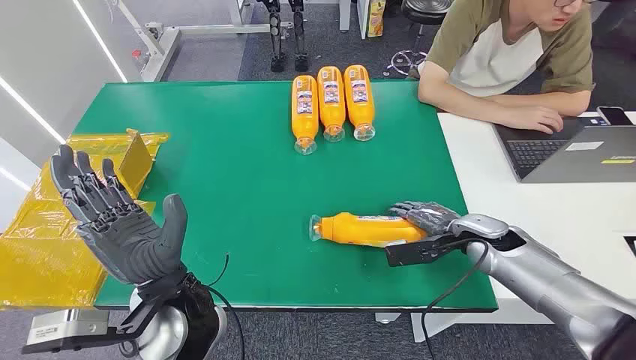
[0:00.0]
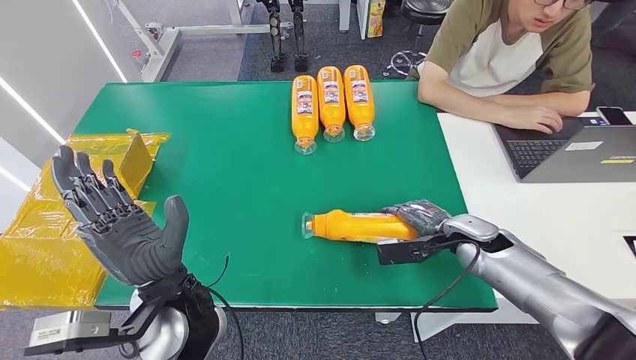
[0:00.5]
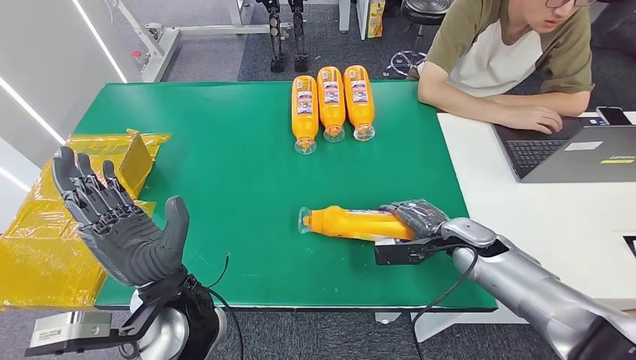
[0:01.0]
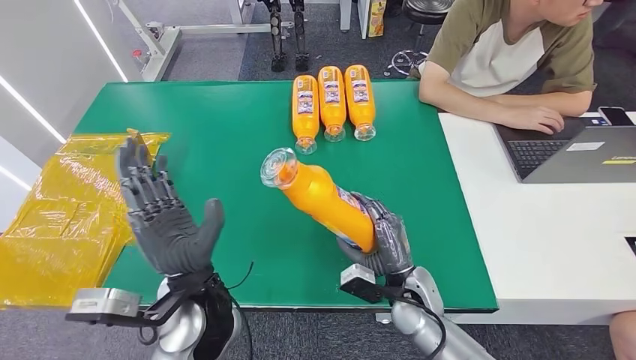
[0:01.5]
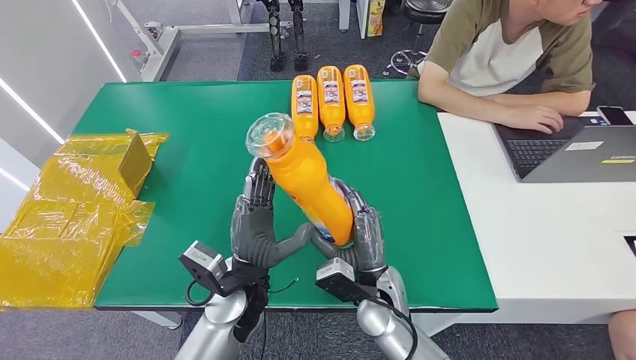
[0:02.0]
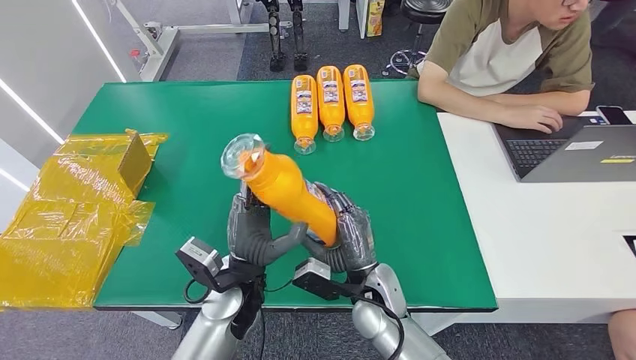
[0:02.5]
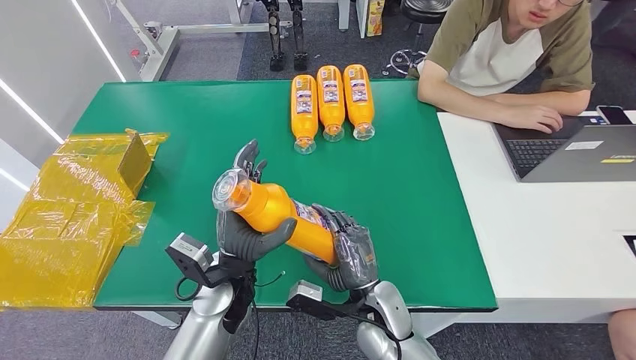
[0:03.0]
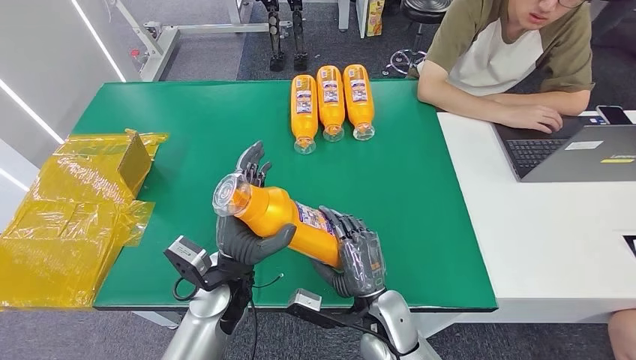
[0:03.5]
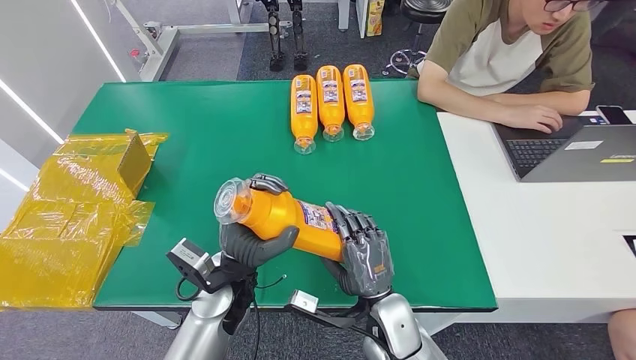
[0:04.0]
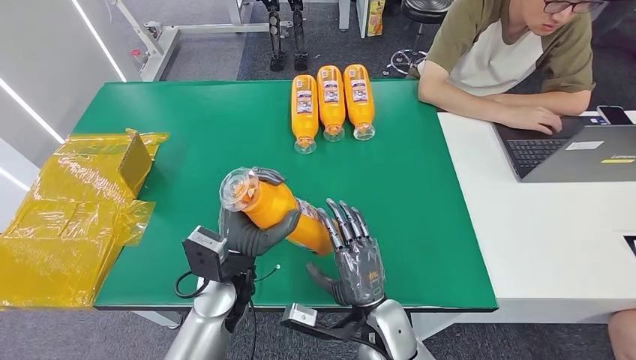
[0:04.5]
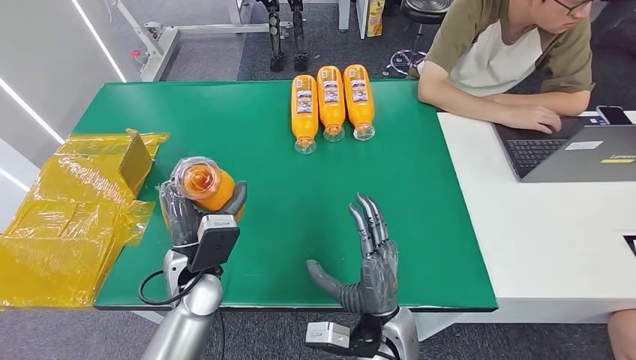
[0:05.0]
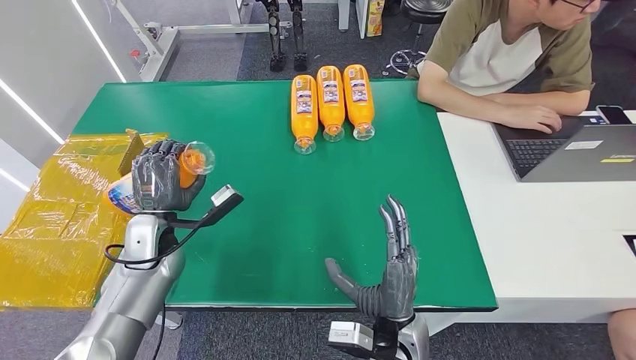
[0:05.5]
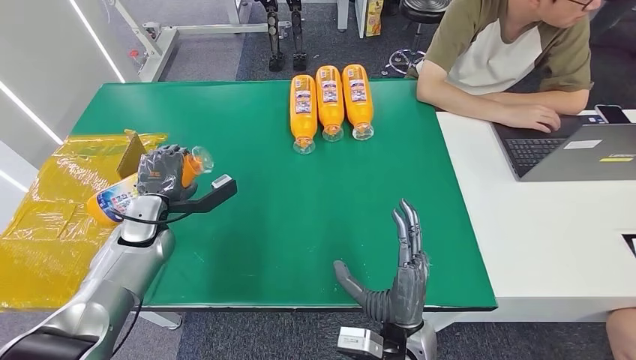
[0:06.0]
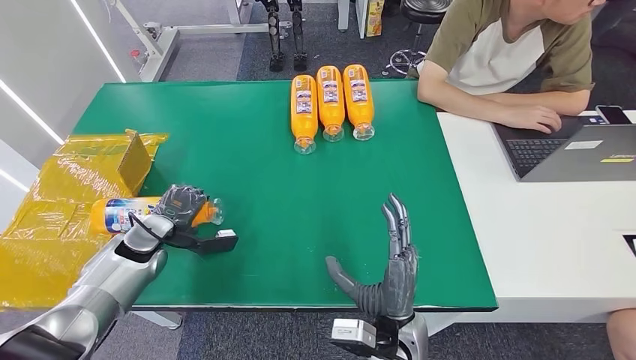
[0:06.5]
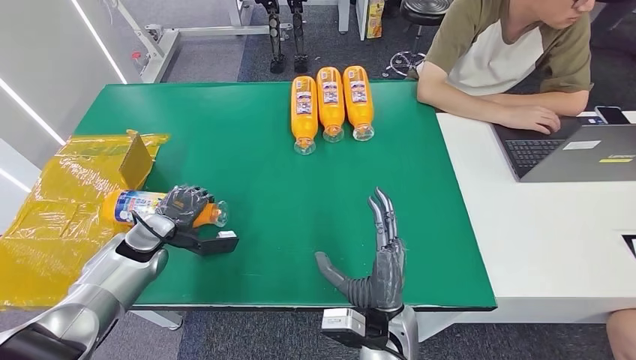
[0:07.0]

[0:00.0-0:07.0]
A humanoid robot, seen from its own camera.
Step, 0:00.0 to 0:02.0: Pick up the bottle from the table.
Step, 0:02.5 to 0:07.0: Turn the bottle to the front side.
0:03.5 to 0:05.0: The left hand moves approximately 5 cm.
0:05.0 to 0:07.0: The left hand heads to the left, covering approximately 20 cm.

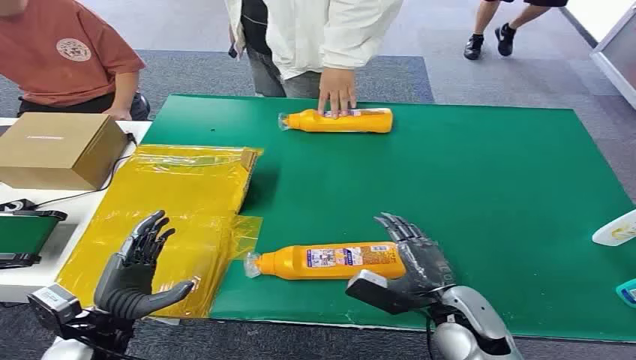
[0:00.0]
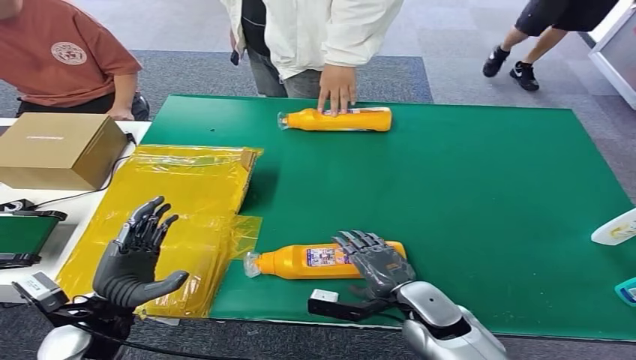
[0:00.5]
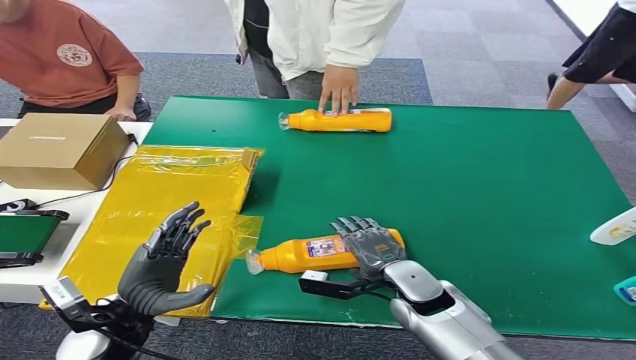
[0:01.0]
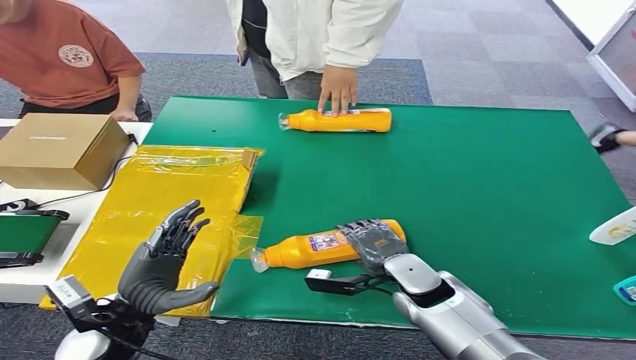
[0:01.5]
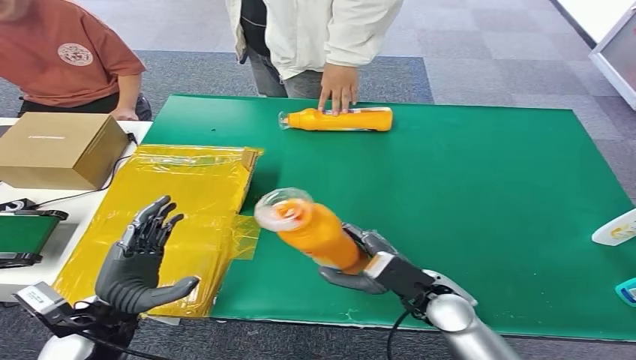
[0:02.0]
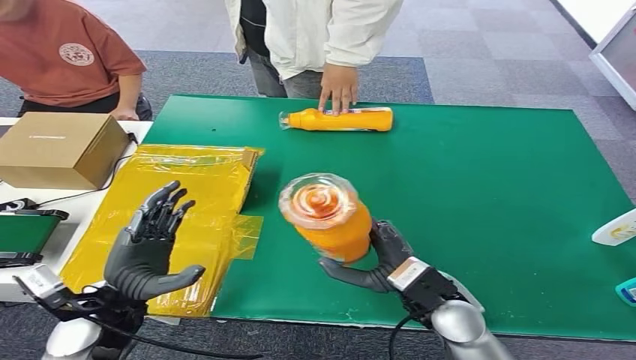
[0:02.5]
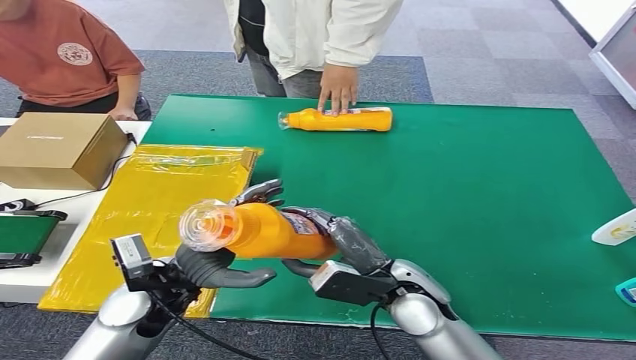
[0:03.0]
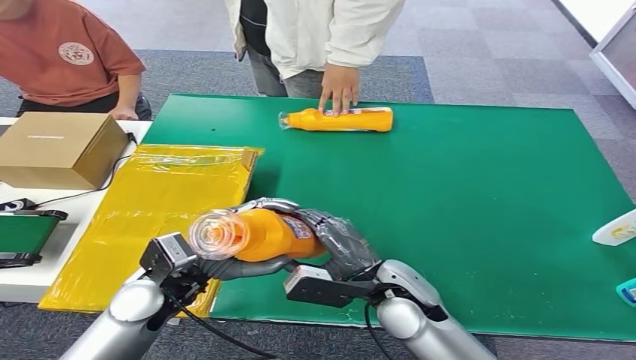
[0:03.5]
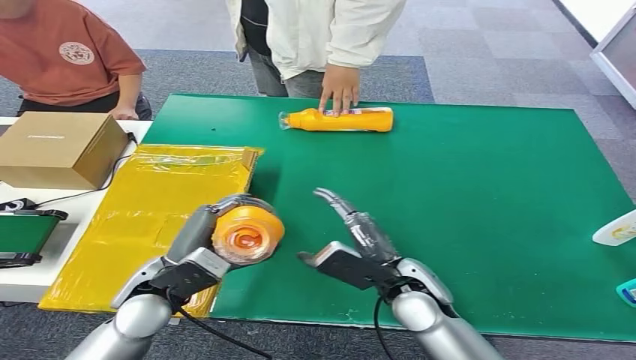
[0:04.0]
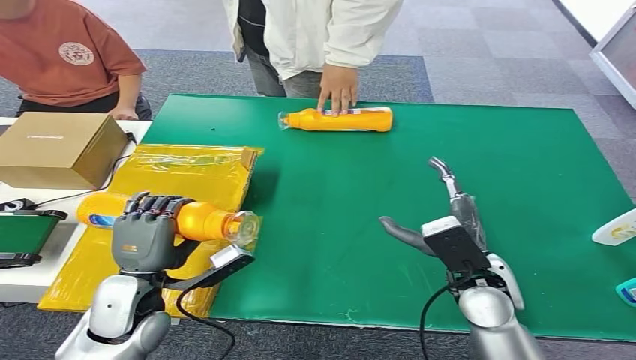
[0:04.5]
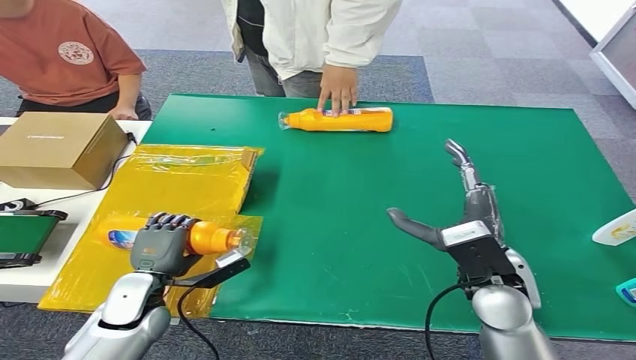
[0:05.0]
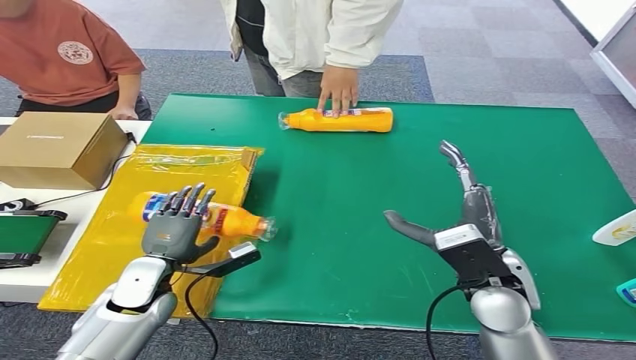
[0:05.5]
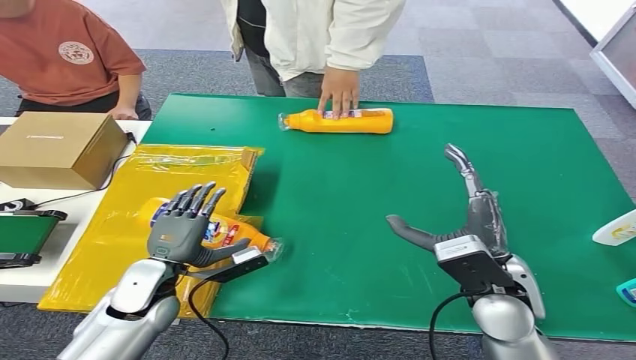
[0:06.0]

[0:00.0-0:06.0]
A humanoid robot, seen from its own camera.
Step, 0:00.0 to 0:02.0: Pick up the bottle from the table.
Step, 0:02.5 to 0:06.0: Turn the bottle to the front side.
0:02.0 to 0:04.0: The left hand goes about 5 cm to the right. Meanwhile the right hand changes place by roughly 5 cm.
0:04.0 to 0:06.0: The right hand travels to the right and upward by some 10 cm; the left hand is displaced downward by about 5 cm.
